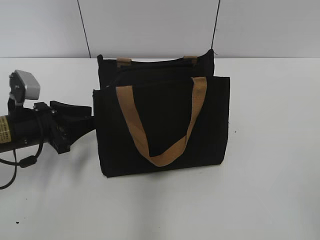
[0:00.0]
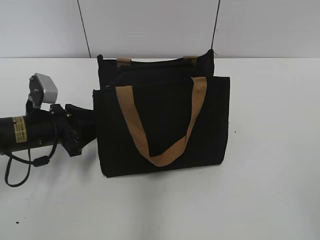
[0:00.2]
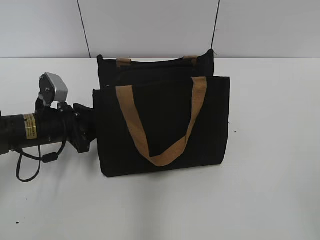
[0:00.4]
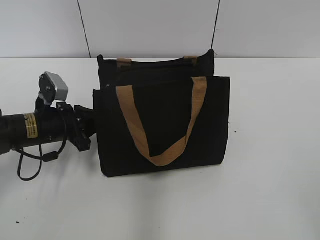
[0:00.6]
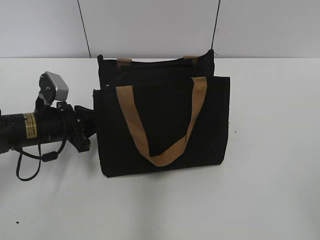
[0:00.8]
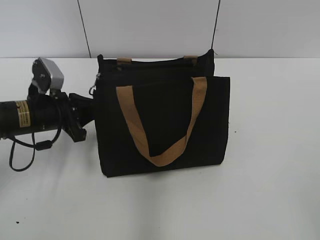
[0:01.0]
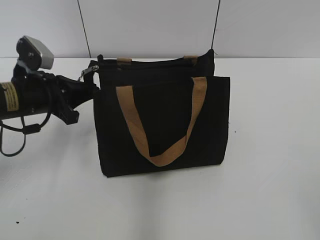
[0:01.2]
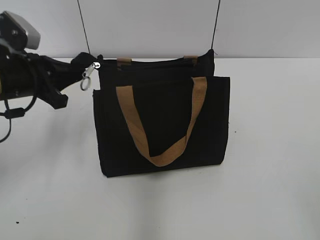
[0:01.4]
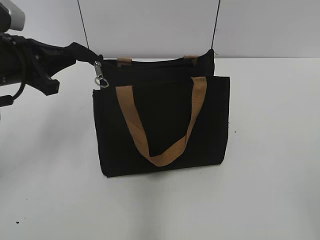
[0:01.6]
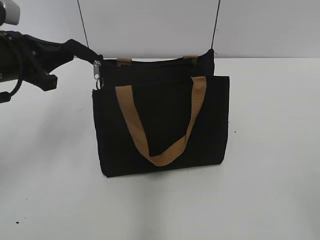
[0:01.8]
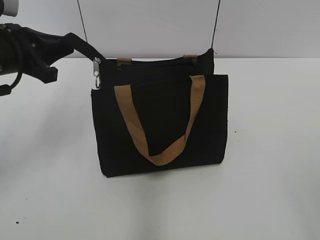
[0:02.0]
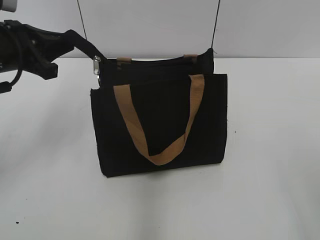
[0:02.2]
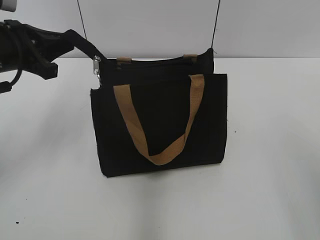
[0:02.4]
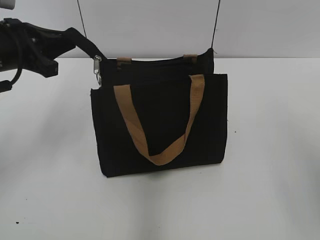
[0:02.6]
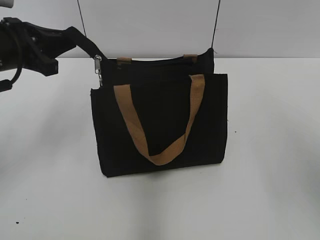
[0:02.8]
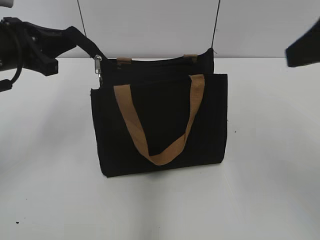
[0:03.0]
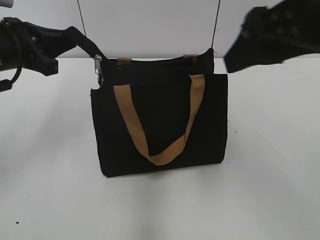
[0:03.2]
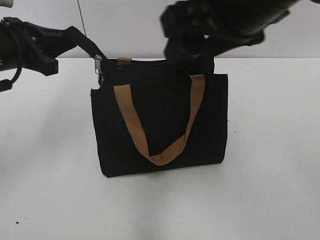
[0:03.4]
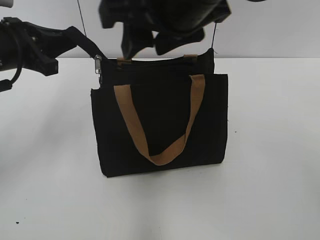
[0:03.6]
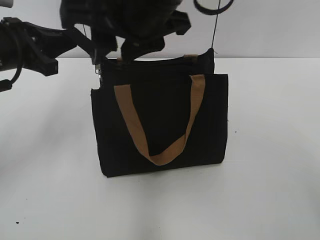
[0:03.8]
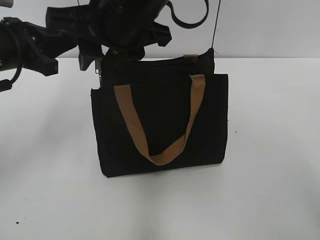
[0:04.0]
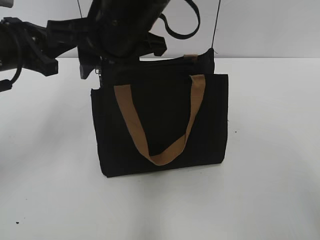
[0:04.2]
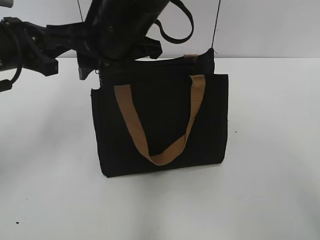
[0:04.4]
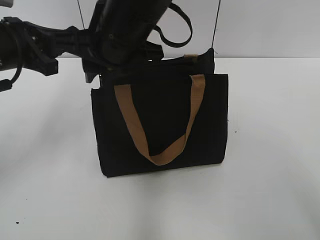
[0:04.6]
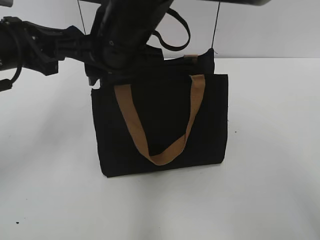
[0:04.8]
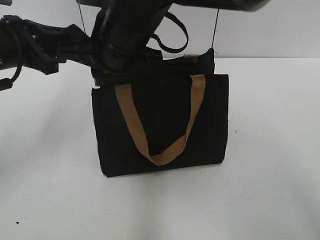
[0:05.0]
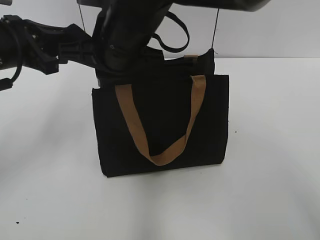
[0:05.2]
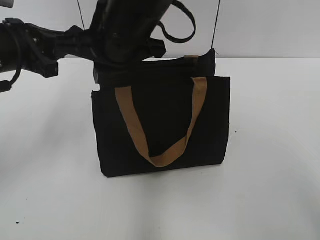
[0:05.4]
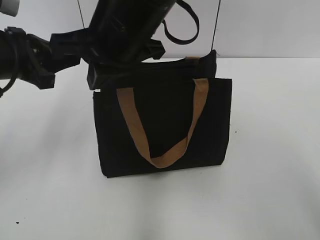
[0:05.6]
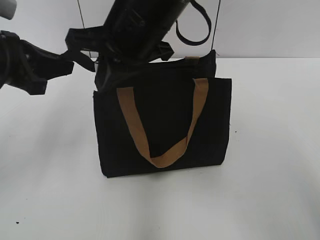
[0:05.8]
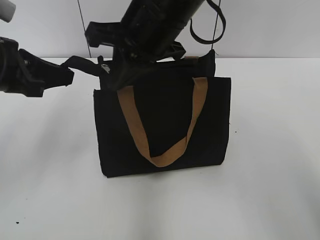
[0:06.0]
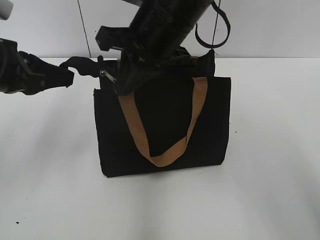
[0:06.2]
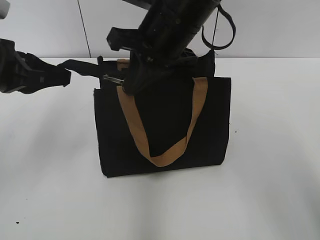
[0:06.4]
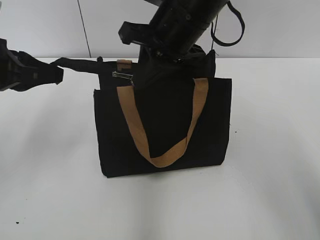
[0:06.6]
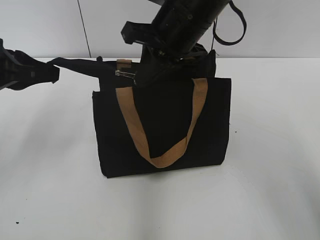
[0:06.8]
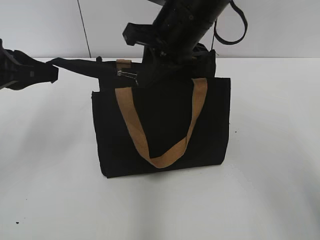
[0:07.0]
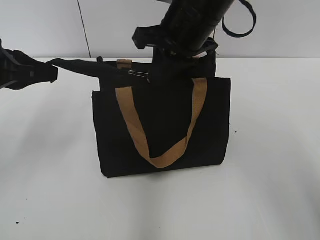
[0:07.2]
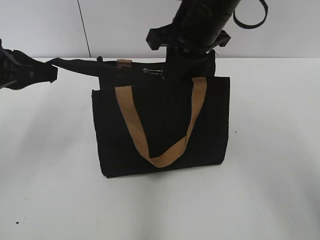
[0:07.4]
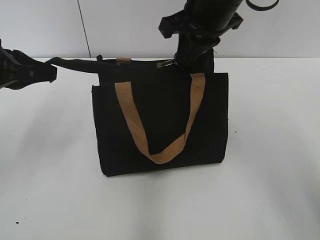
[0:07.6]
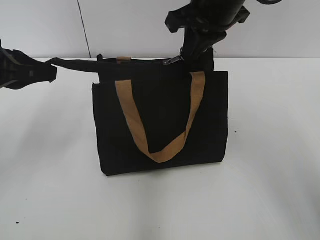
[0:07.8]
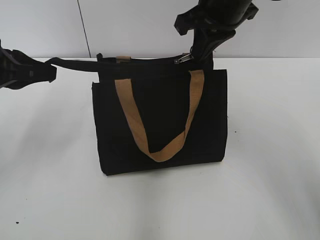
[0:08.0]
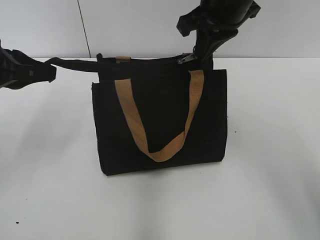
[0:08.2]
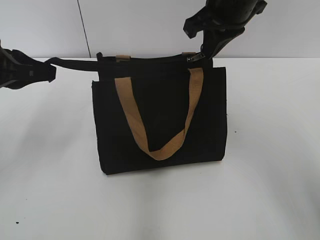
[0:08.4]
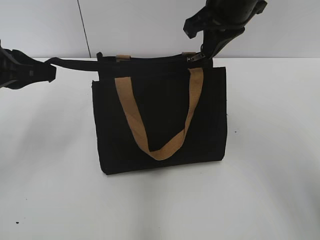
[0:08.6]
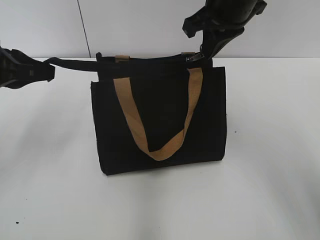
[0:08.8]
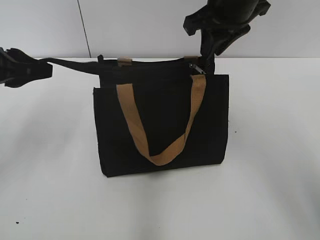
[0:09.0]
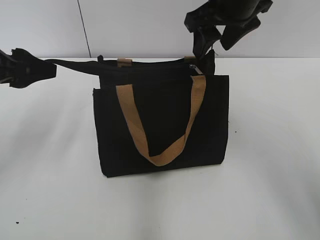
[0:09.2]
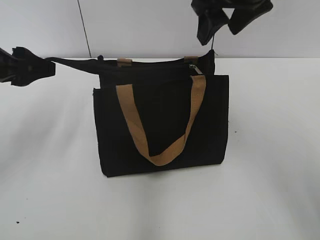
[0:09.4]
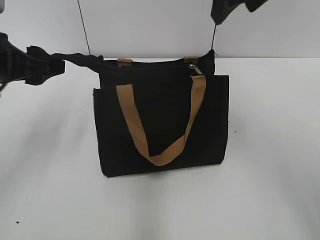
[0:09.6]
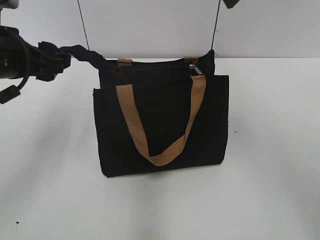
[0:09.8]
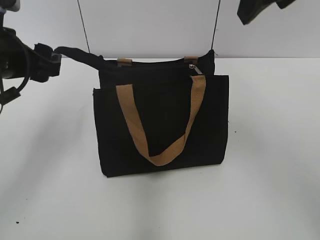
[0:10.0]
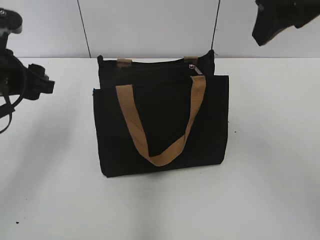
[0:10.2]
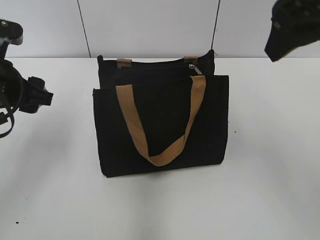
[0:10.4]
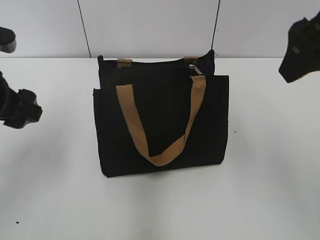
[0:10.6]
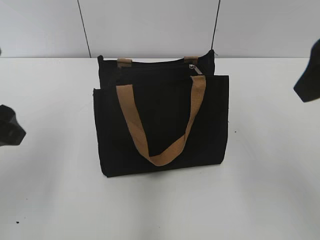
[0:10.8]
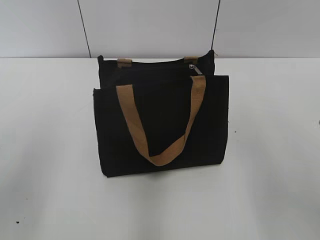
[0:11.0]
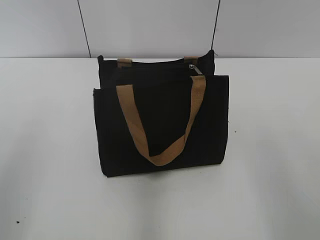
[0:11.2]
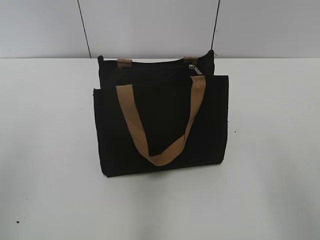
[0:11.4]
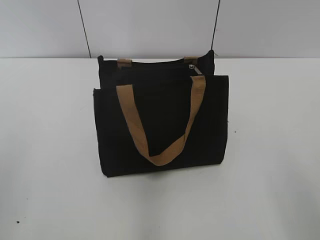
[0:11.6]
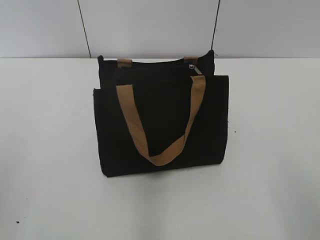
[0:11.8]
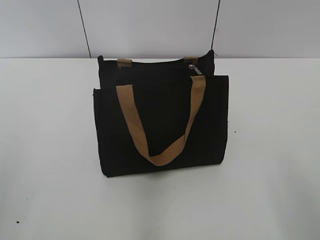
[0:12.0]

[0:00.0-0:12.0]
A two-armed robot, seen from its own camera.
Step, 0:00.0 to 0:08.8: Zip up the bag with your right hand.
Step, 0:09.2 to 0:10.0: Grab the zipper with your left hand.
0:00.0 to 0:01.6: The left gripper goes about 10 cm upward, and closes.
0:01.6 to 0:03.0: The right gripper moves forward and upward, approximately 20 cm.
0:03.0 to 0:04.4: The right gripper moves to the left, roughly 25 cm, and closes up.
0:04.4 to 0:06.0: The right gripper closes its fingers.
0:06.0 to 0:07.6: The right gripper heads to the right, covering about 10 cm.
0:07.6 to 0:09.0: The grippers make only small movements.
0:09.0 to 0:10.4: The right gripper is displaced backward, upward and to the right by roughly 15 cm, and opens; the left gripper opens its fingers.
0:10.4 to 0:12.0: The left gripper travels backward by approximately 25 cm. The right gripper is displaced backward, downward and to the right by approximately 25 cm.

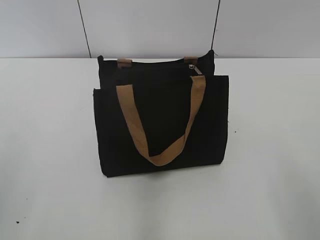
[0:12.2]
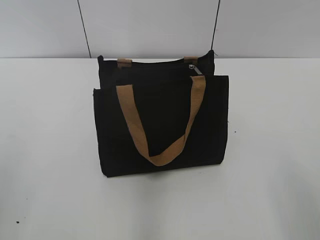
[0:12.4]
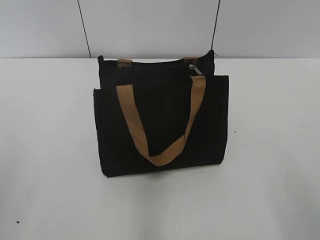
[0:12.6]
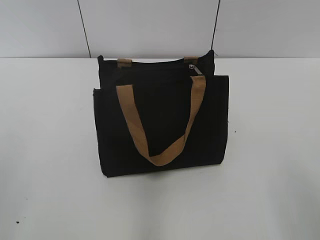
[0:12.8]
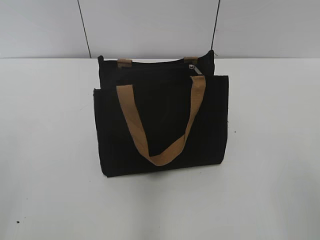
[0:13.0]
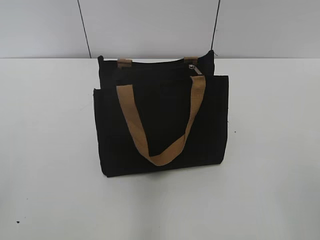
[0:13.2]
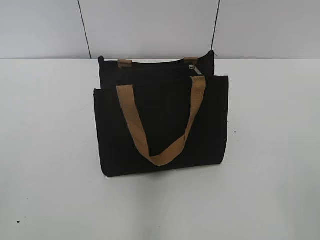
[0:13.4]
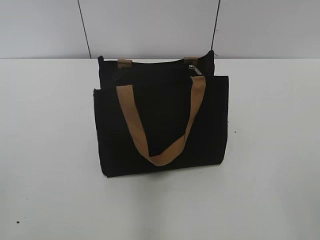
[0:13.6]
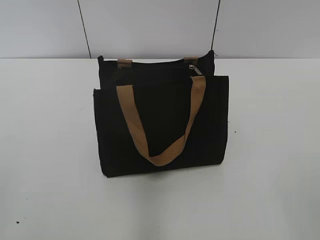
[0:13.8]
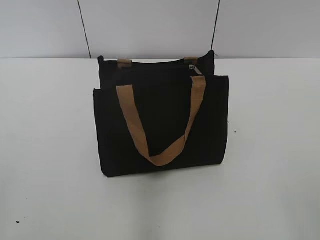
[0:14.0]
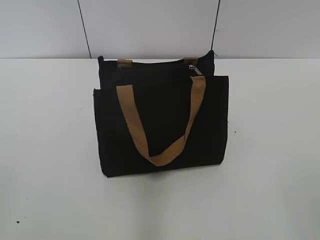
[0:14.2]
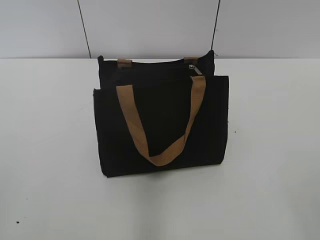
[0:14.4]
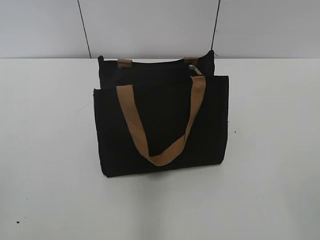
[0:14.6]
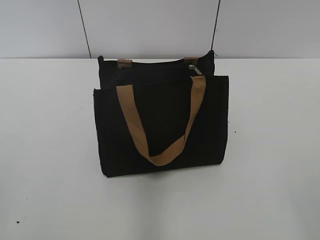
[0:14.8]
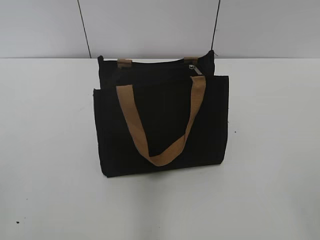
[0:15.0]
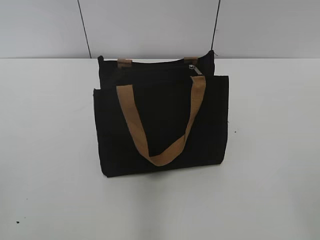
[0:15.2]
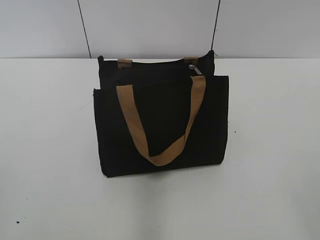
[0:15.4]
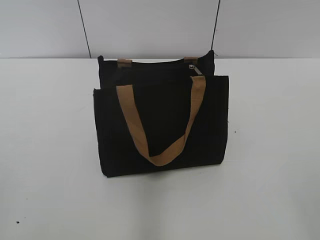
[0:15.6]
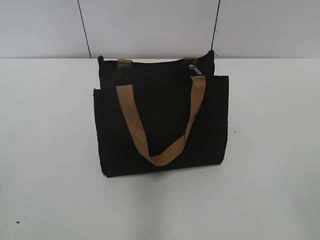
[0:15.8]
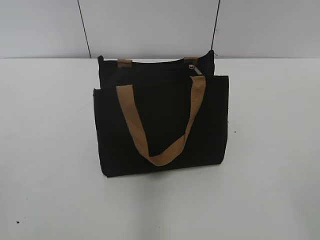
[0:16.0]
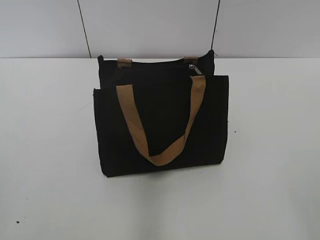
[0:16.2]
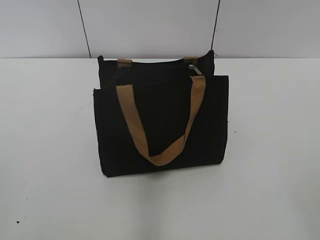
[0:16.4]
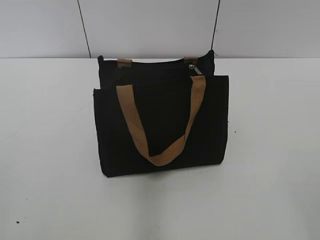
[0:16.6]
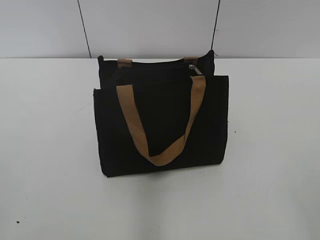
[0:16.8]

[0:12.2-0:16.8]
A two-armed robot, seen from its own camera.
0:15.2 to 0:16.8: Both grippers stay put.
